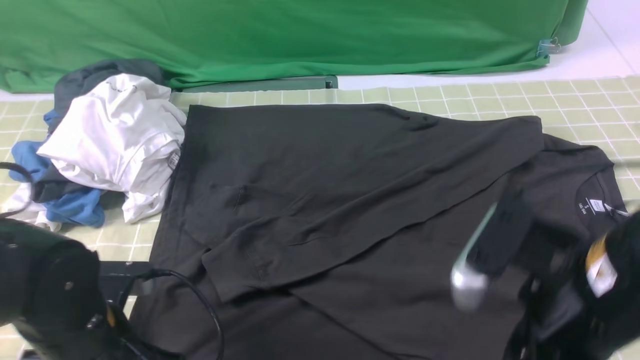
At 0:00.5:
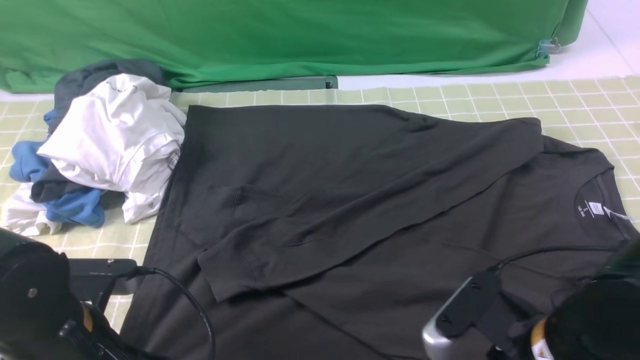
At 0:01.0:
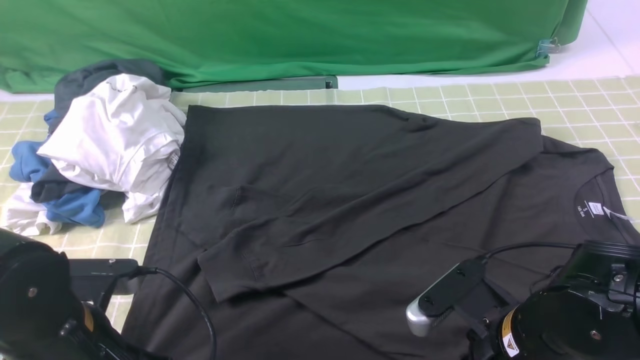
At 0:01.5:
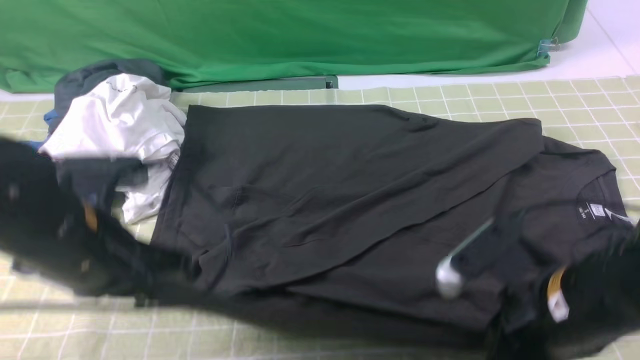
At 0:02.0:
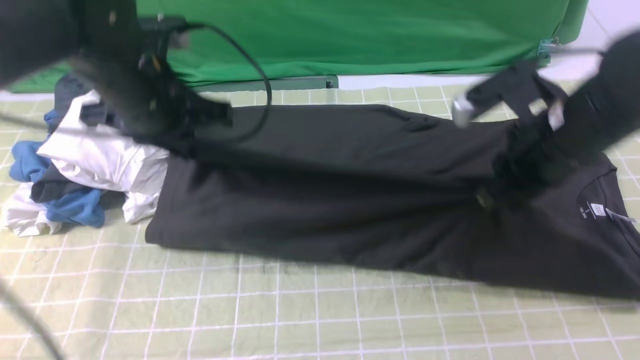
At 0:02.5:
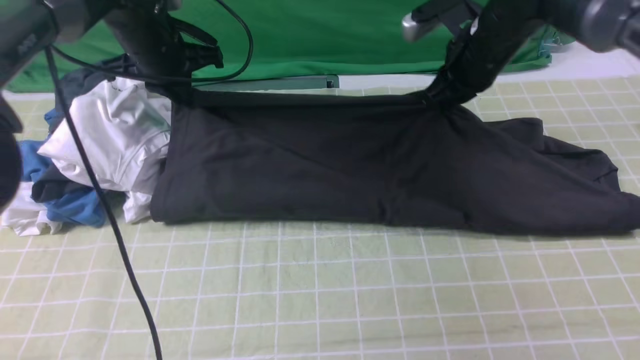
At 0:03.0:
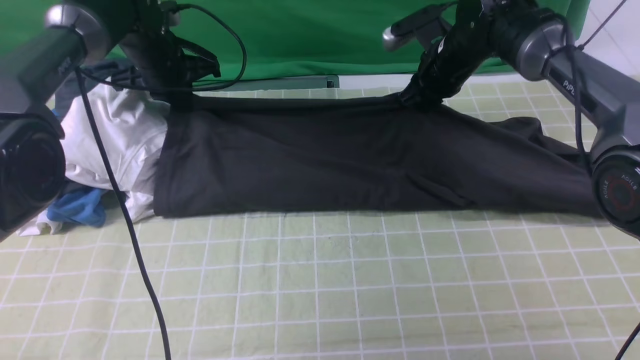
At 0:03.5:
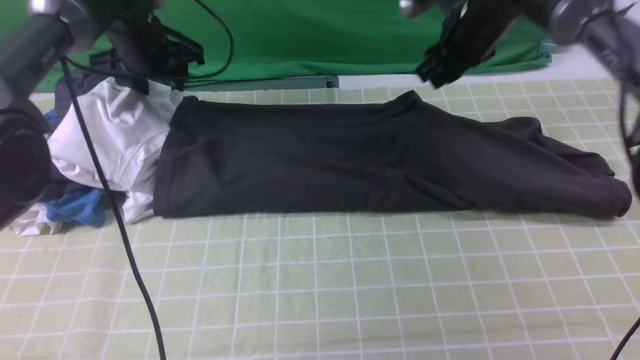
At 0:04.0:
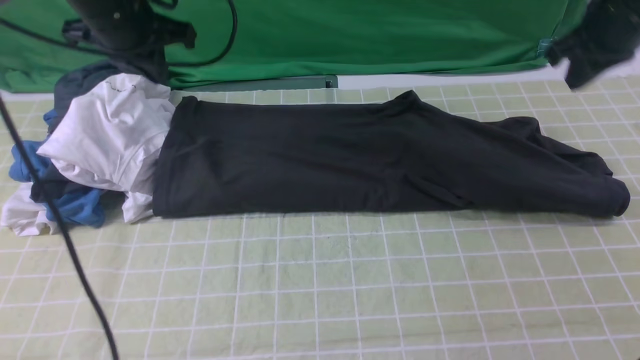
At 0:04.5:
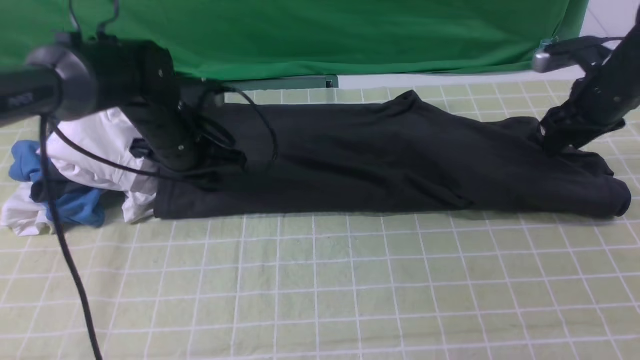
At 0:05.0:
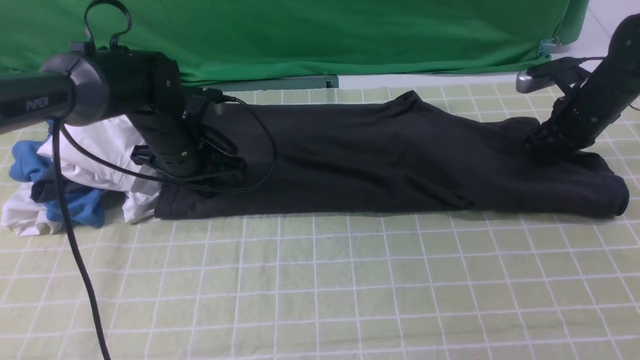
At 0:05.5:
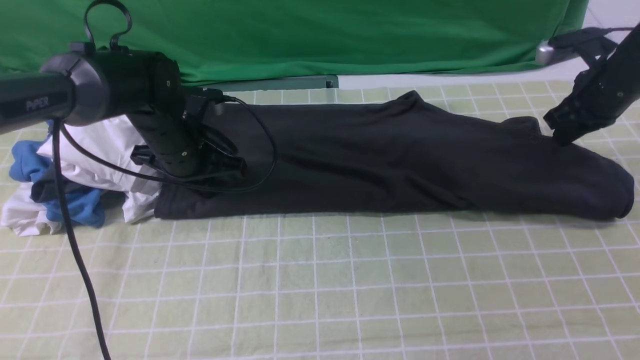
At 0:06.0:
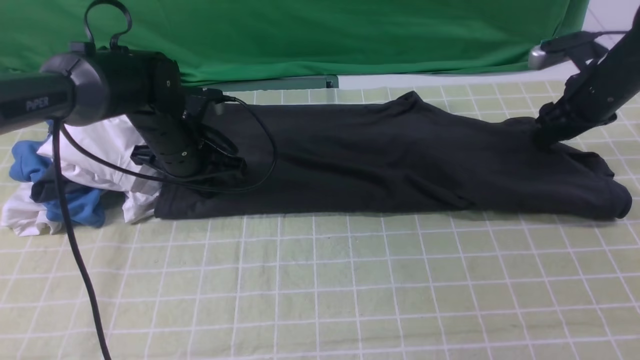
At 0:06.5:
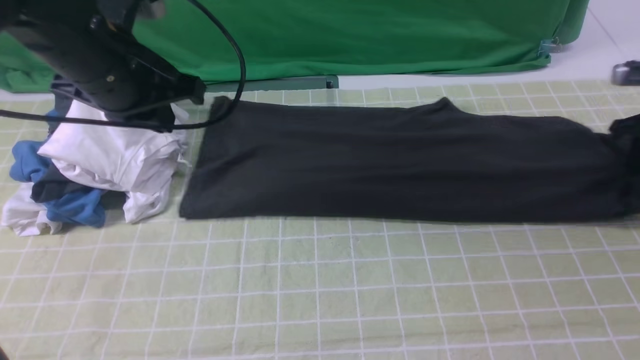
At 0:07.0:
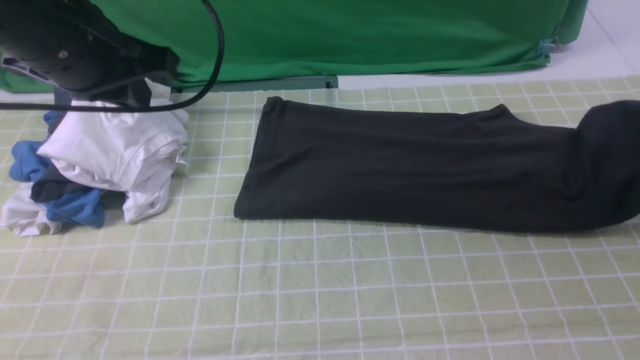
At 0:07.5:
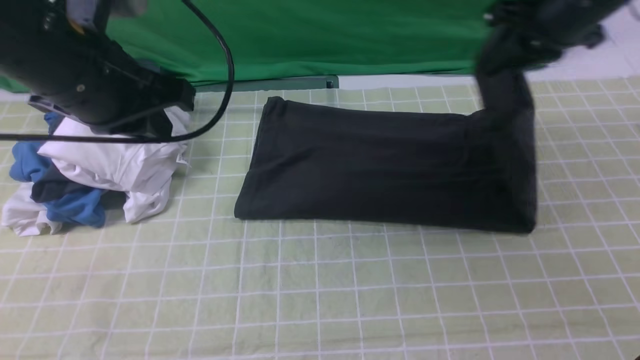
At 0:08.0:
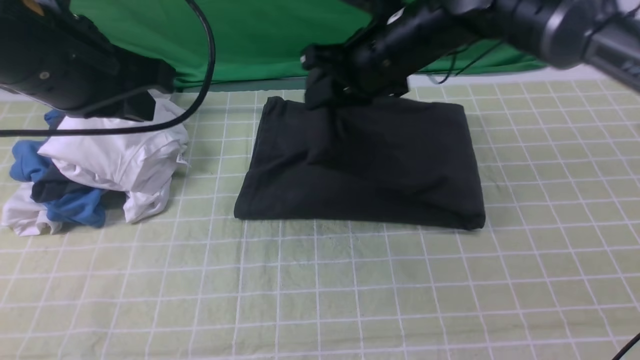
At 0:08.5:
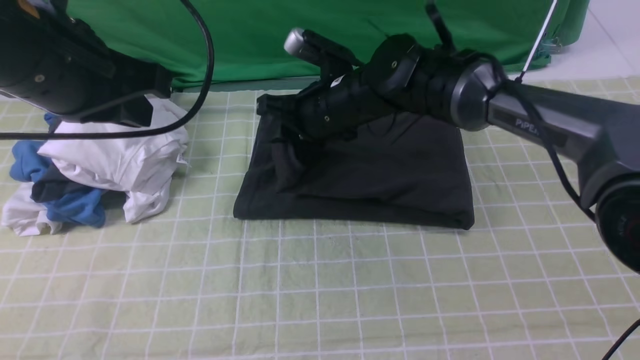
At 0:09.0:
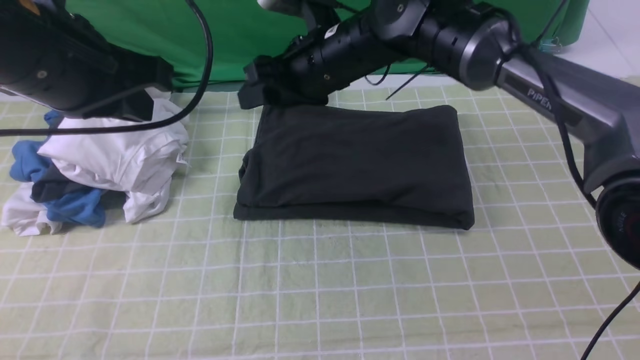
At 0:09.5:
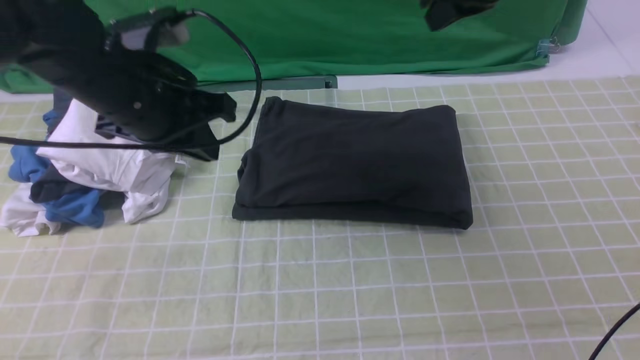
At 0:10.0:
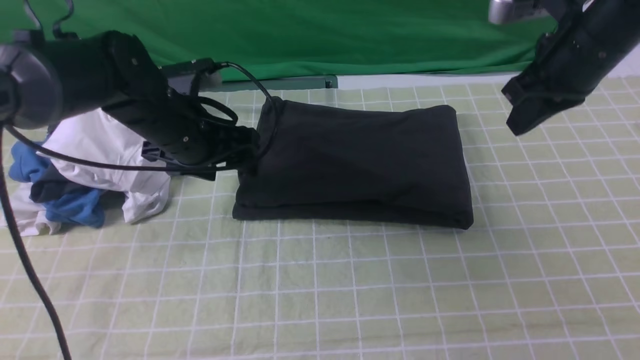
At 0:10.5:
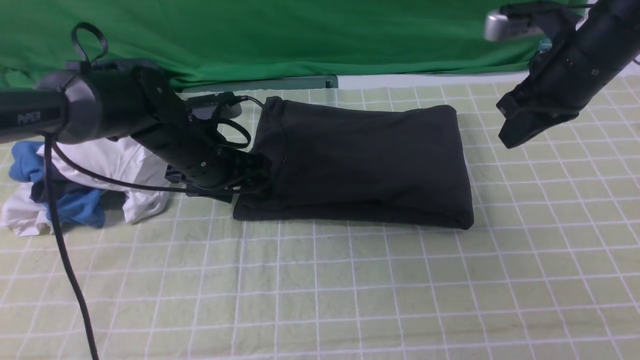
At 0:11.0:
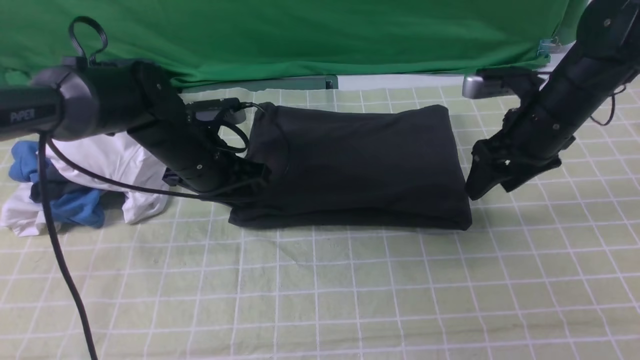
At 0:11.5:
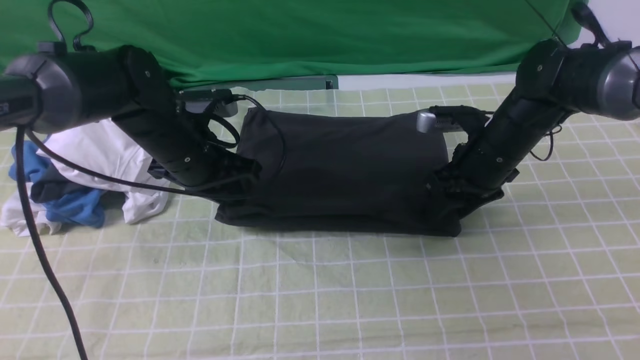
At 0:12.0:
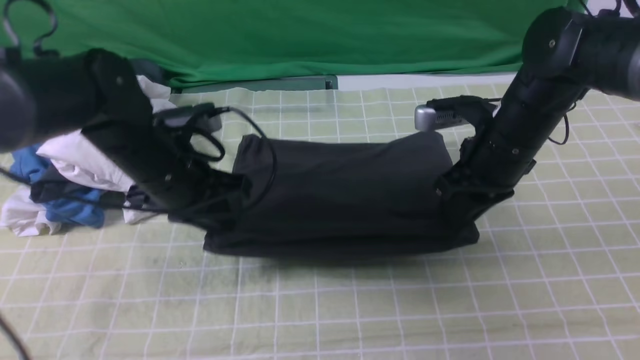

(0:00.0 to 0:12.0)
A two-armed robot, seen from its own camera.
Step, 0:01.5 - 0:03.0: use both arms to drag the lower edge of the fabric forward and fold it over the upper edge.
Step, 0:03.5 - 0:06.0: use the right arm to clamp the right edge of the fabric.
Step, 0:06.5 - 0:08.5: use the right arm to drag the right edge of the fabric to the left and folds it over the left edge.
0:00.0 - 0:02.0: The right gripper shifts roughly 15 cm forward, and closes. Meanwhile the left gripper moves forward and upward, some 25 cm.
0:02.0 - 0:04.0: The right gripper moves forward and to the right, approximately 15 cm, while the left gripper moves forward, approximately 10 cm, and opens and closes again.
0:04.0 - 0:06.0: Both grippers travel together downward, approximately 10 cm. The right gripper opens its fingers.
0:06.0 - 0:08.0: The right gripper moves to the left, approximately 30 cm, and closes its fingers. Meanwhile the left gripper moves upward and backward, roughly 20 cm.
0:08.0 - 0:10.0: The left gripper goes some 20 cm downward and forward, and opens up. Meanwhile the right gripper is displaced to the right by about 15 cm, and opens, then closes once more.
0:10.0 - 0:12.0: The right gripper travels downward and to the left by about 10 cm, and opens, then closes again. Meanwhile the left gripper is displaced backward by approximately 5 cm, and closes its fingers.

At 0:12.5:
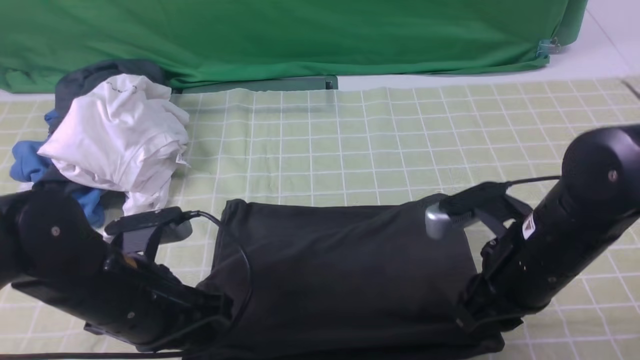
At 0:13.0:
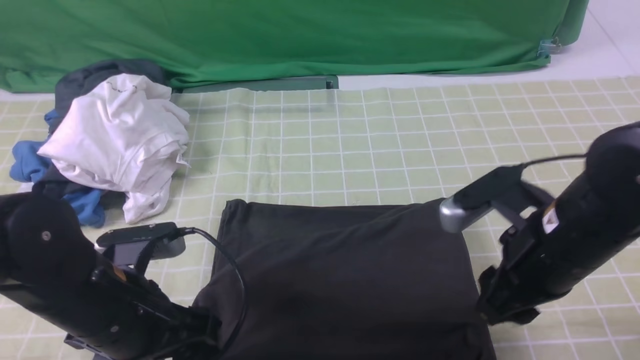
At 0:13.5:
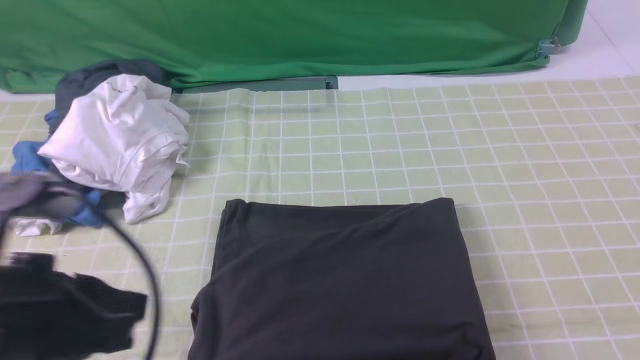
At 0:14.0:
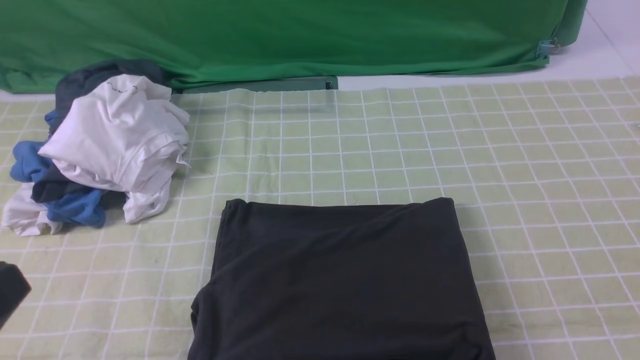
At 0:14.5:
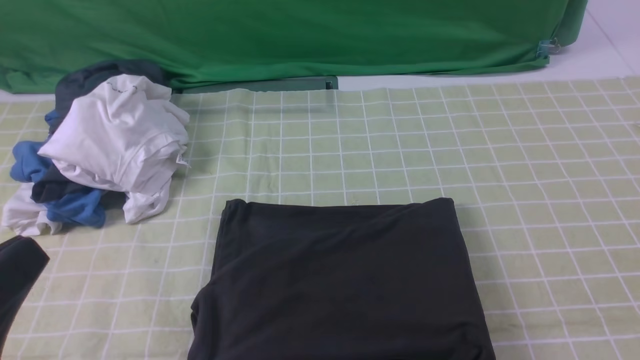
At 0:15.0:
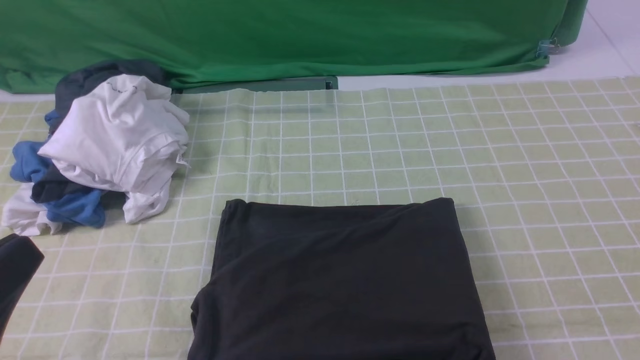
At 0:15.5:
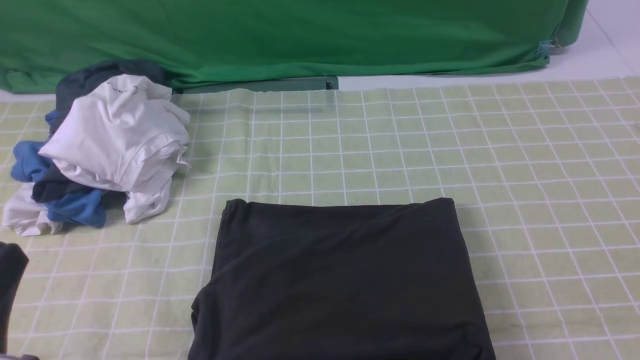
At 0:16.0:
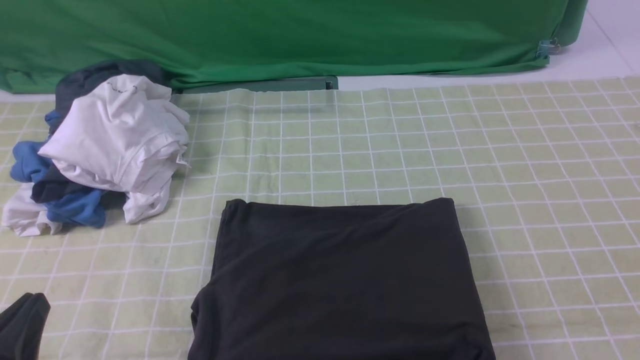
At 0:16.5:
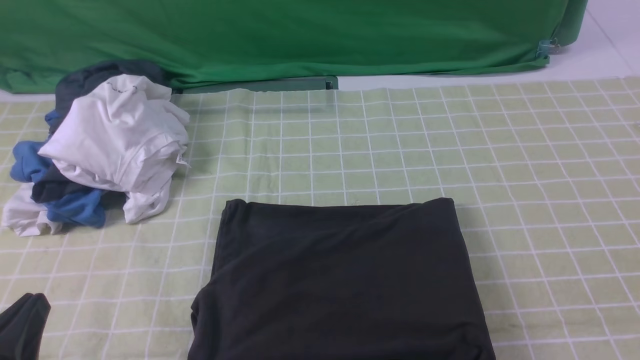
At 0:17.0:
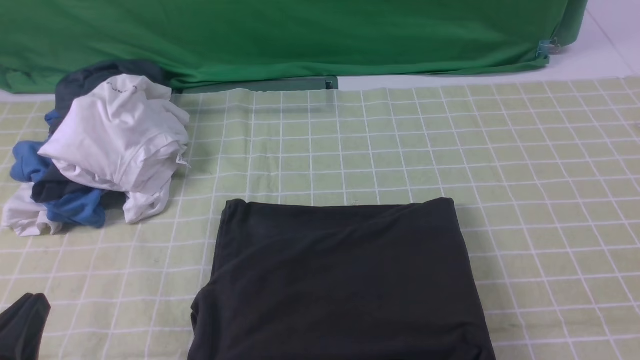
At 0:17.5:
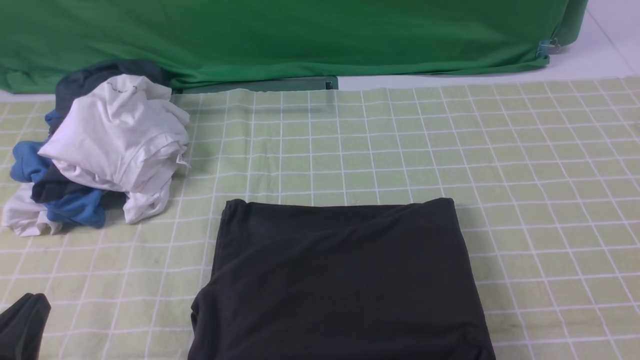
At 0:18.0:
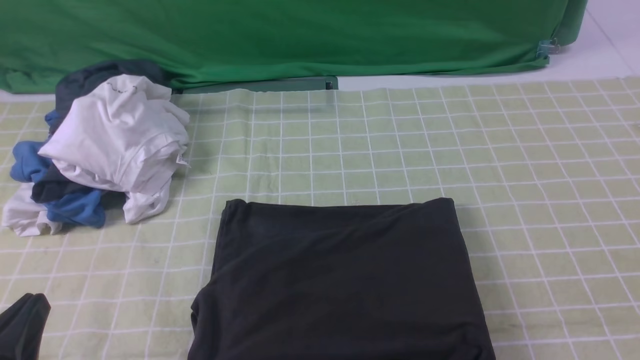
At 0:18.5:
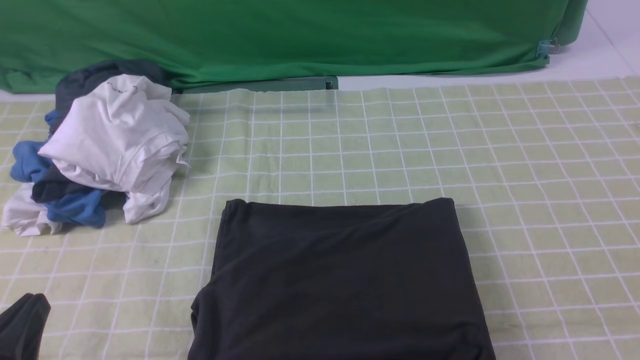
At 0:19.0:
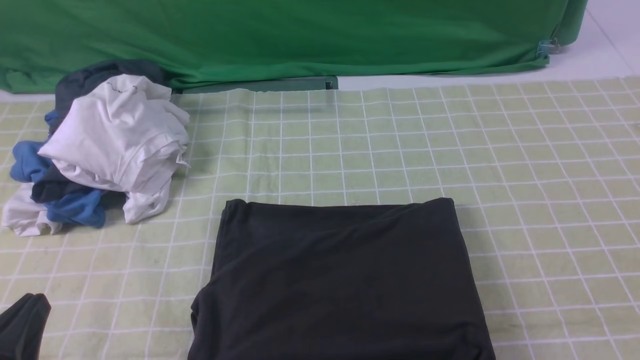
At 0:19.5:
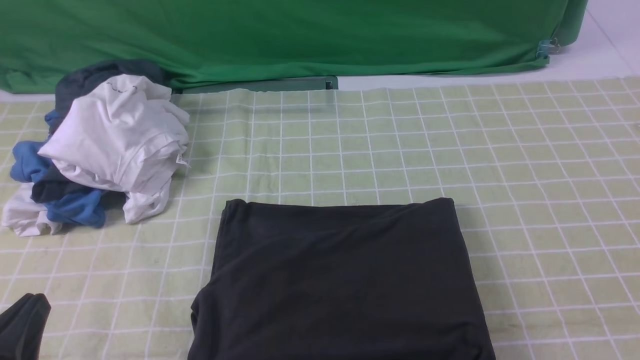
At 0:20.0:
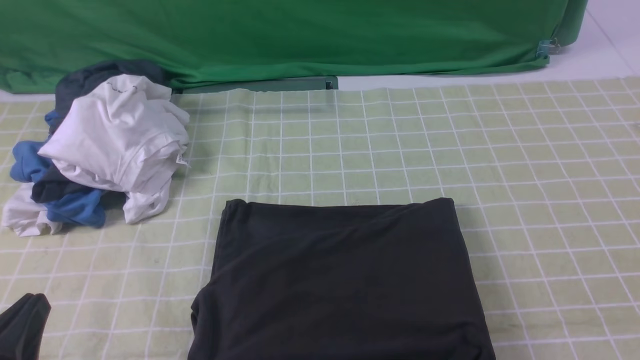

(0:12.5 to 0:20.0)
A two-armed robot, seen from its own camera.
0:12.5 - 0:14.5: The right gripper shifts about 35 cm backward, to the right and upward. The left gripper is displaced backward and upward by about 20 cm, and opens, then closes again.
0:14.5 - 0:16.5: The left gripper goes roughly 10 cm downward.
